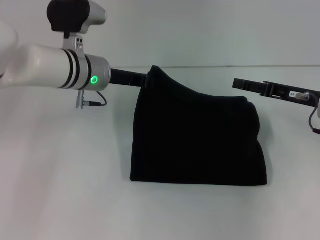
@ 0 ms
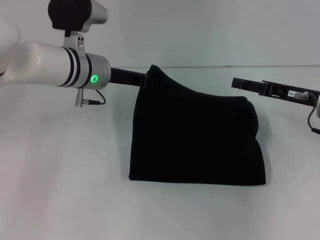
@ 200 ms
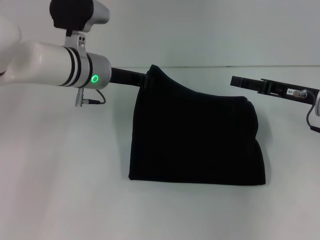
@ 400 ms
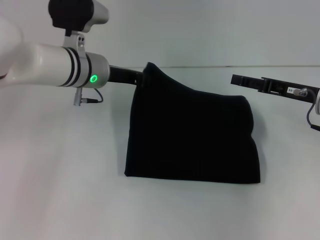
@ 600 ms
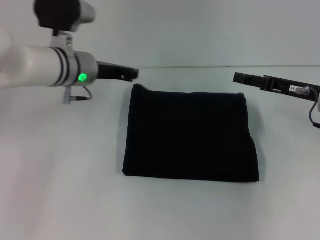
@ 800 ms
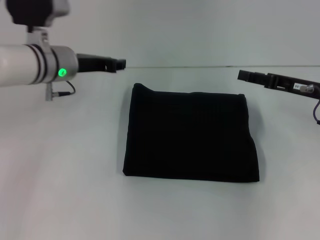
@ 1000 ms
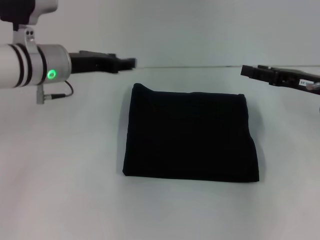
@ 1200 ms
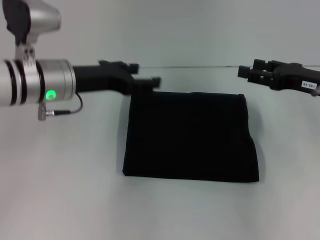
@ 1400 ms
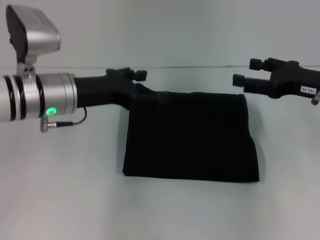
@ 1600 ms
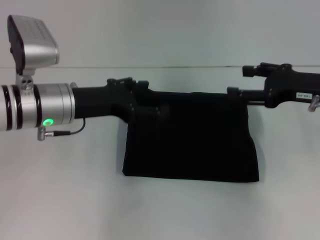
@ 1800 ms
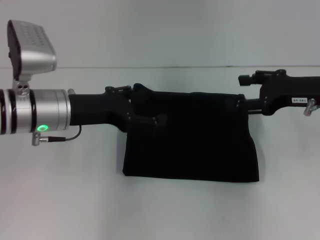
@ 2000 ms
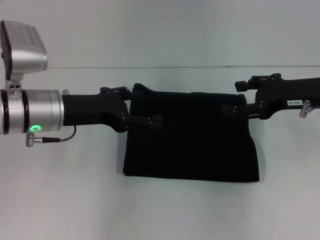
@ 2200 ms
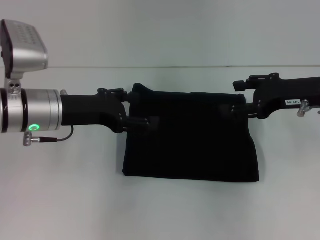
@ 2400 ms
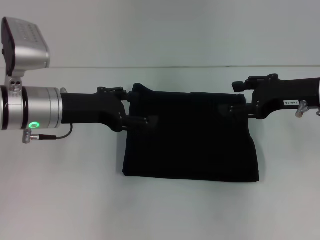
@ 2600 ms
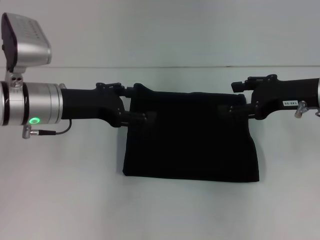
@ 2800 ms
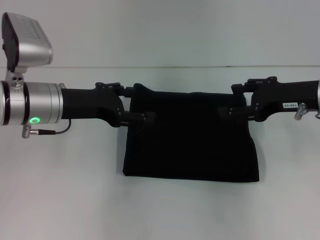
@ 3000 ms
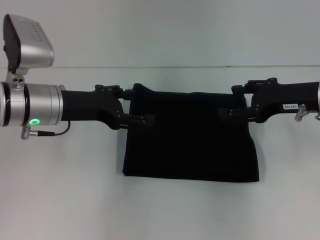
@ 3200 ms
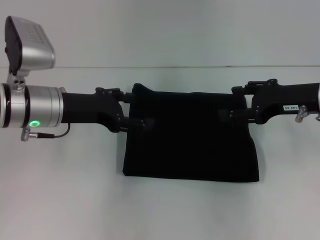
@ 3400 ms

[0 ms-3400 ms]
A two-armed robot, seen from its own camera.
0 ms to 1600 ms: The left gripper travels backward by some 10 cm, and opens up.
1600 ms to 3400 ms: The grippers stay close to where they were, moving slightly.
